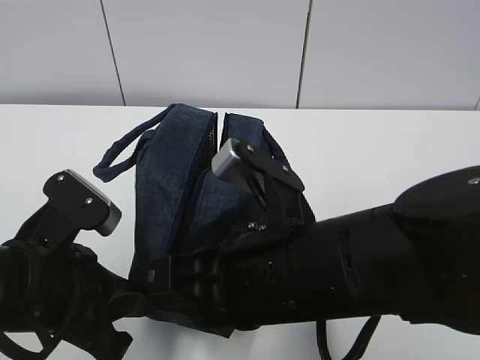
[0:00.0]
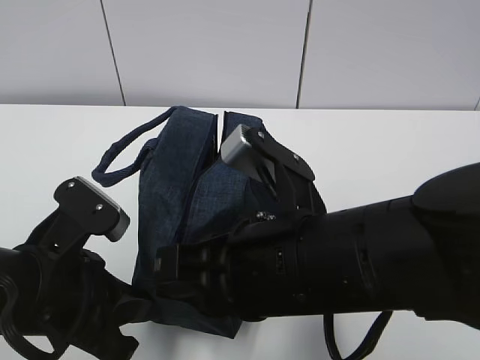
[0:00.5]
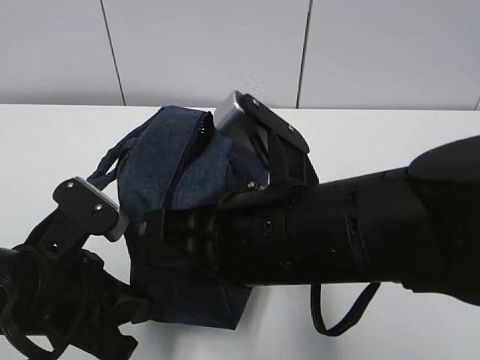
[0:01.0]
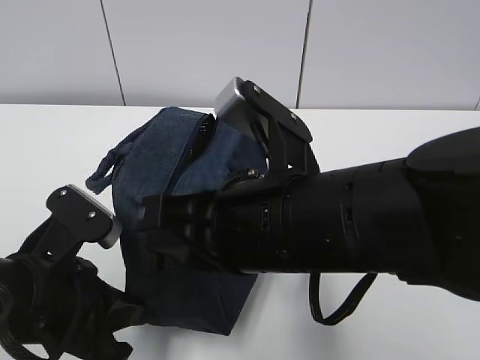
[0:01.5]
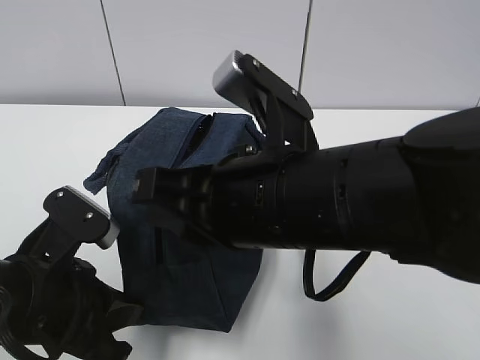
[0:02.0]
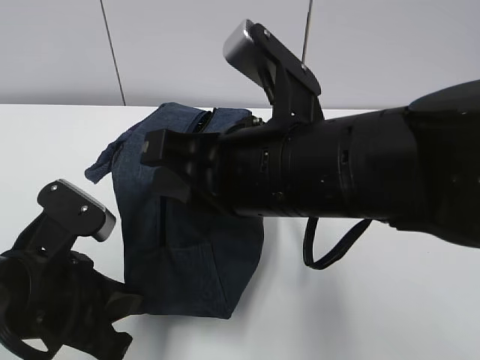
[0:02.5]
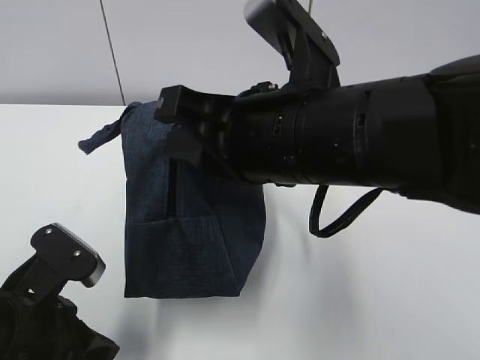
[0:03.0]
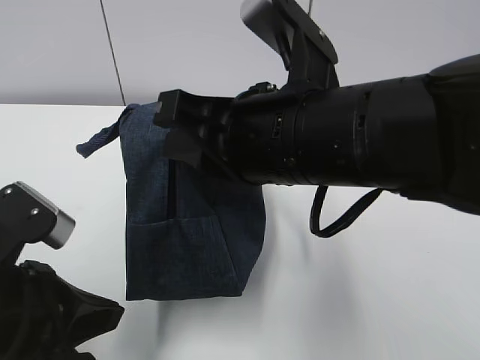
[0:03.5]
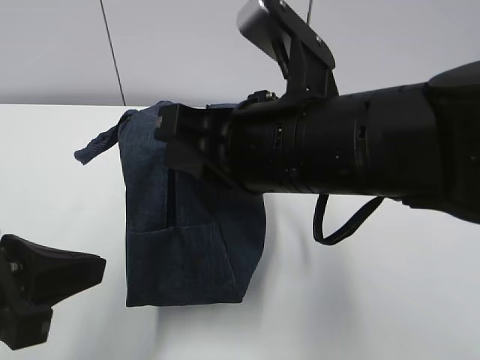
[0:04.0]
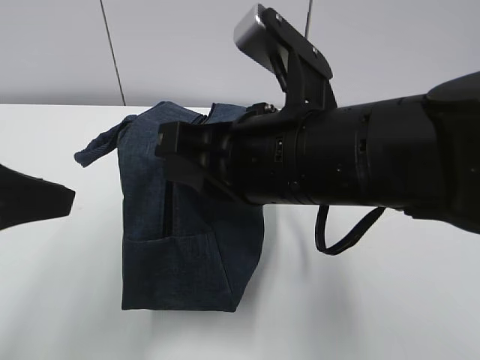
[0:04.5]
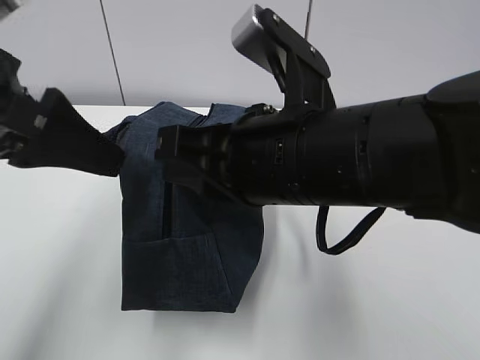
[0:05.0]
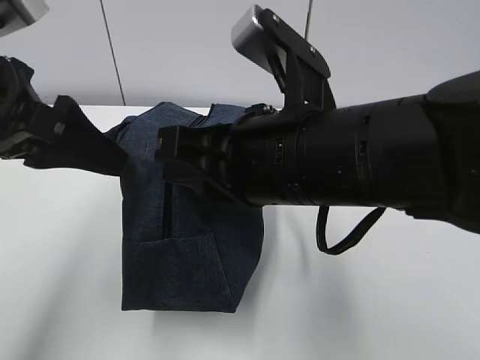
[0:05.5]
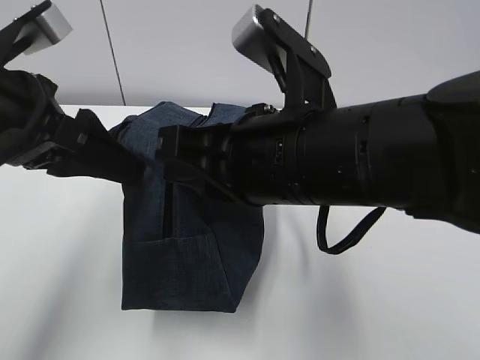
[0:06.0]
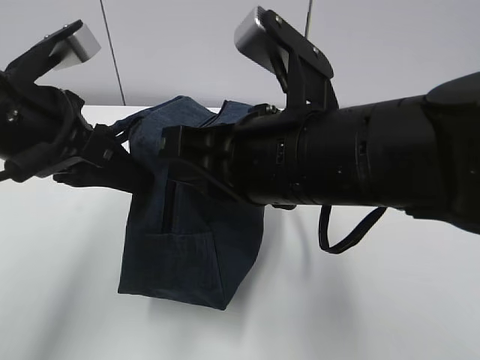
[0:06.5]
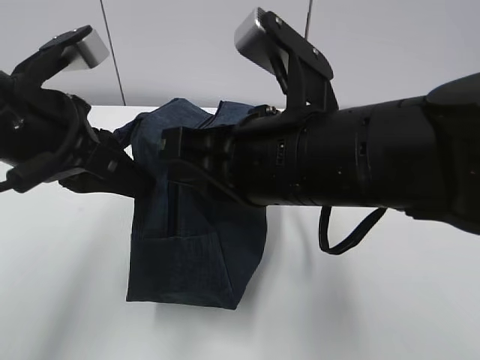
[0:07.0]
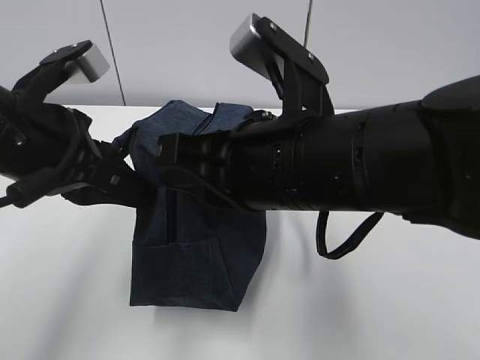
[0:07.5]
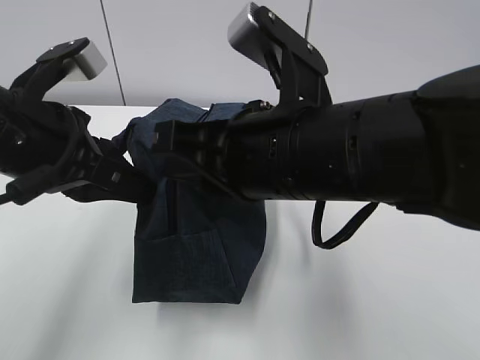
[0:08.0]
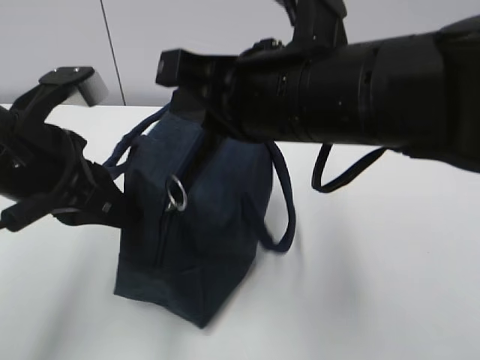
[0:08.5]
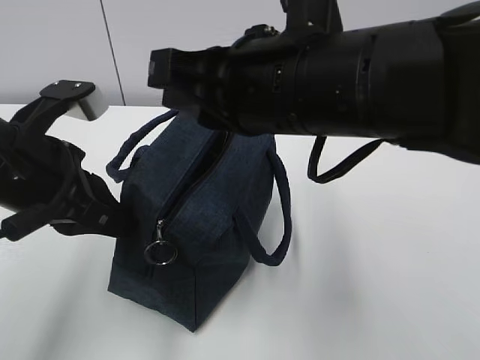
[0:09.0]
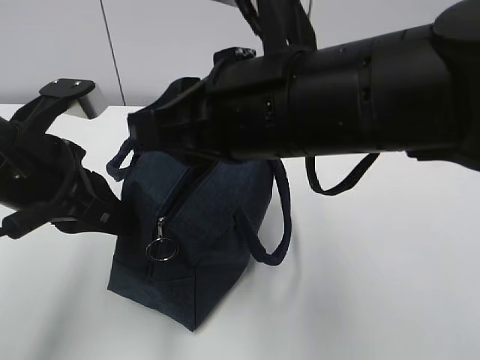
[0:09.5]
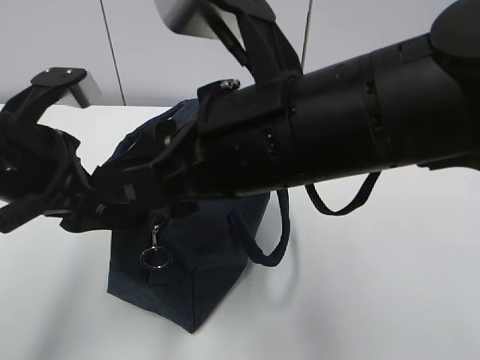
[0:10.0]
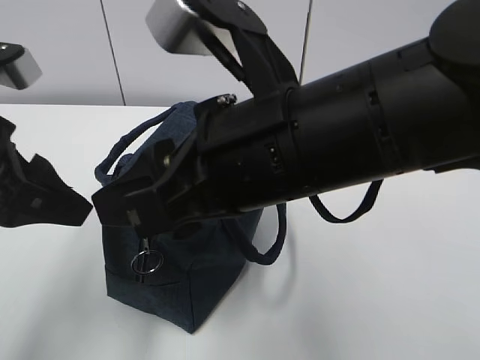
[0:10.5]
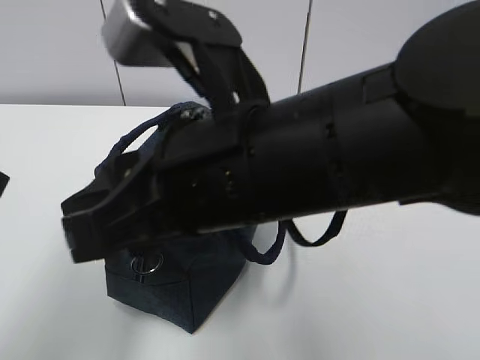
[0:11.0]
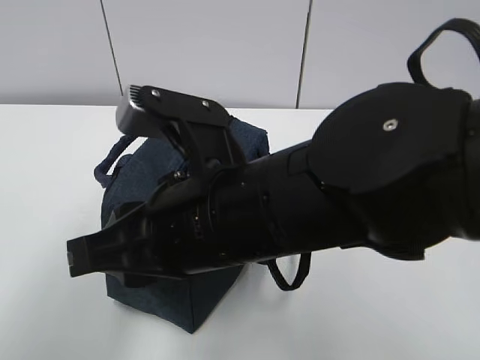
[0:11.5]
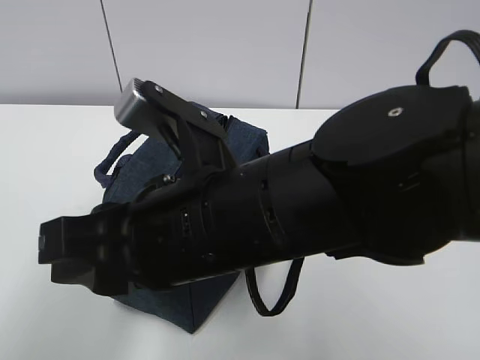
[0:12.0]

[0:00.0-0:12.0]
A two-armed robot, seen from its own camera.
Step, 0:00.0 to 0:11.0: Grab the lunch bag with your left hand.
0:02.0 to 0:04.0: The left gripper travels upward by about 5 cm.
0:04.0 to 0:06.0: The left gripper travels forward and upward by some 15 cm, and opens up.
0:06.0 to 0:08.0: The left gripper closes up.
0:08.0 to 0:10.0: The left gripper opens, while the right gripper opens its fingers.
0:10.0 to 0:12.0: The left gripper heads backward, upward and to the left, covering roughly 15 cm, while the right gripper moves downward, about 5 cm.

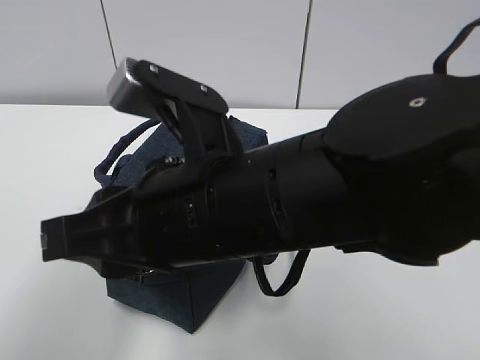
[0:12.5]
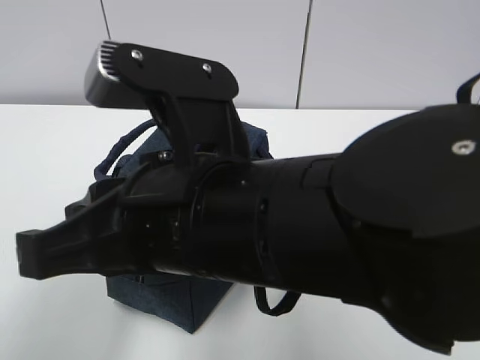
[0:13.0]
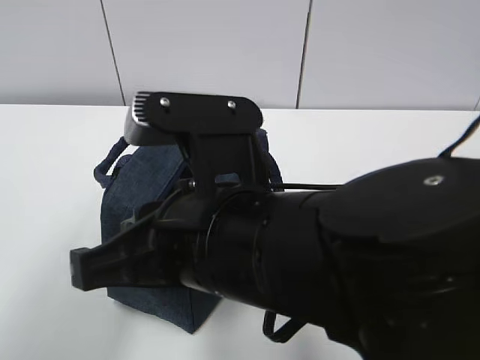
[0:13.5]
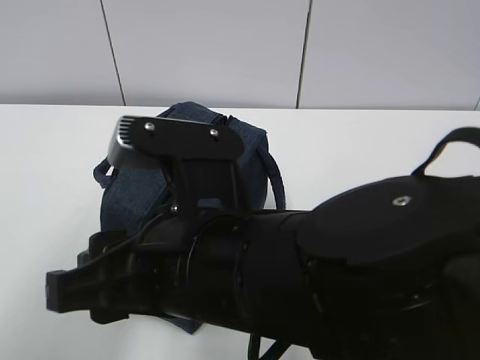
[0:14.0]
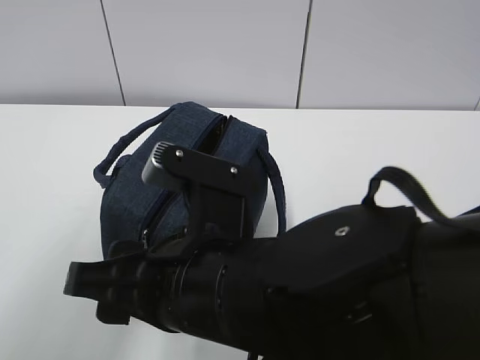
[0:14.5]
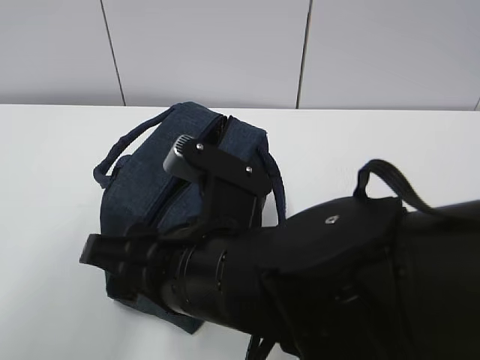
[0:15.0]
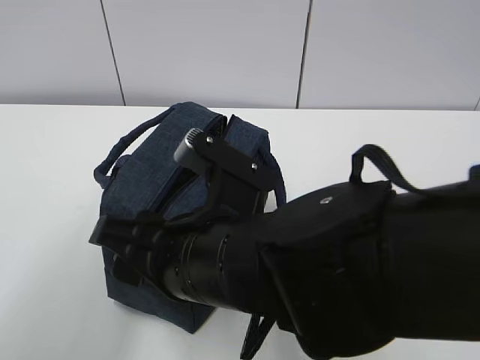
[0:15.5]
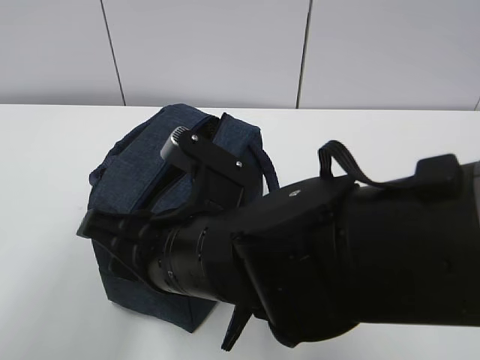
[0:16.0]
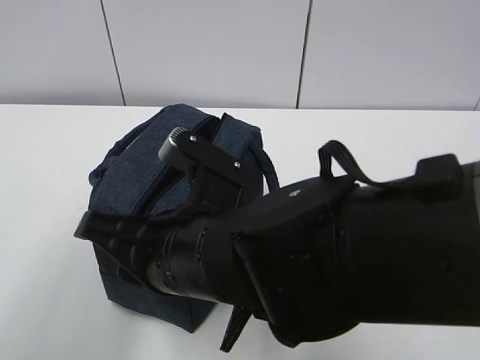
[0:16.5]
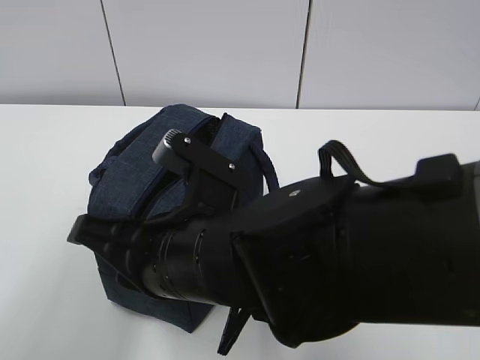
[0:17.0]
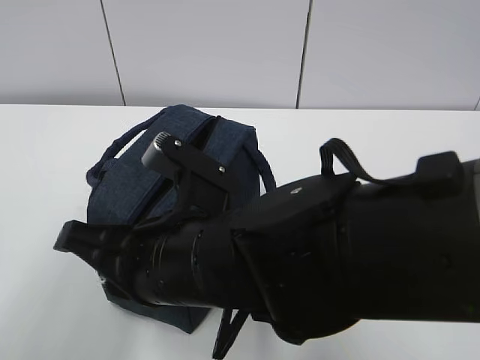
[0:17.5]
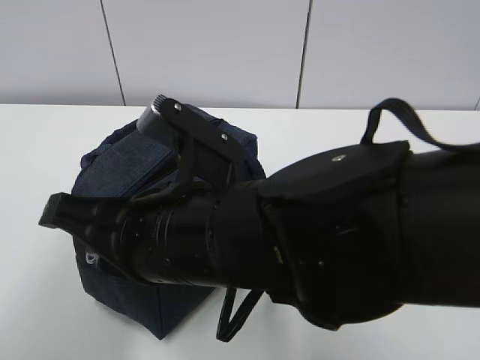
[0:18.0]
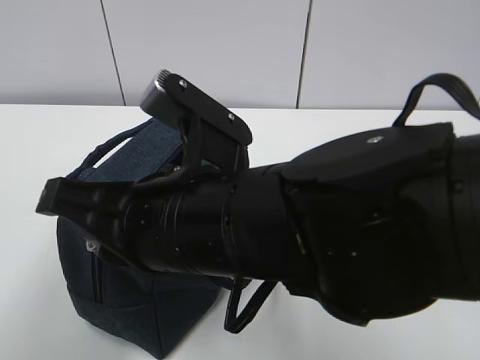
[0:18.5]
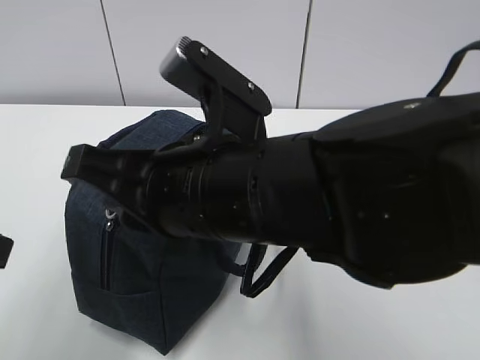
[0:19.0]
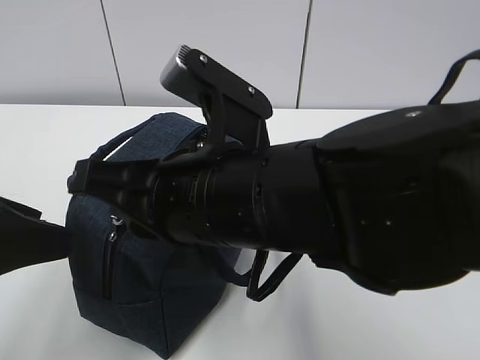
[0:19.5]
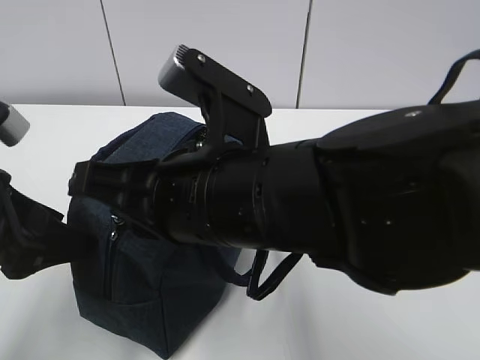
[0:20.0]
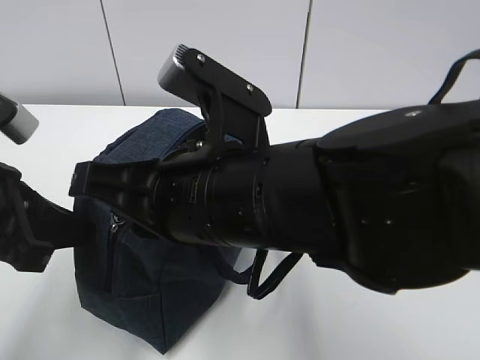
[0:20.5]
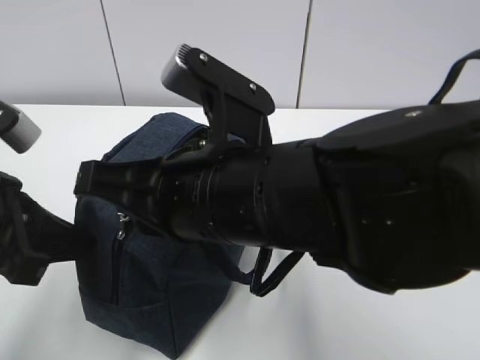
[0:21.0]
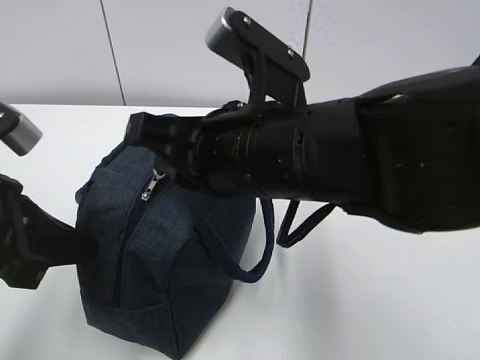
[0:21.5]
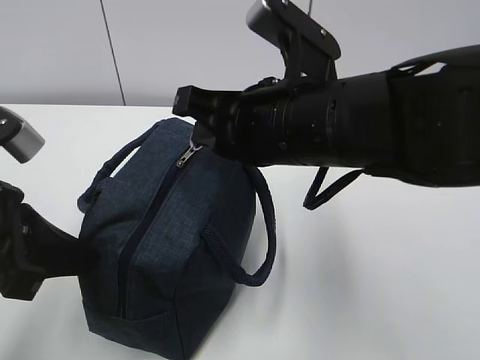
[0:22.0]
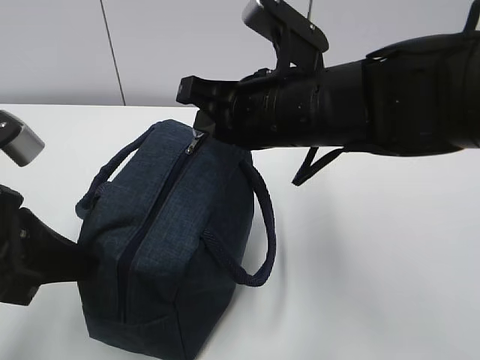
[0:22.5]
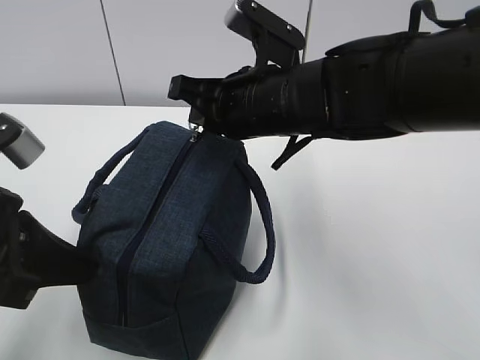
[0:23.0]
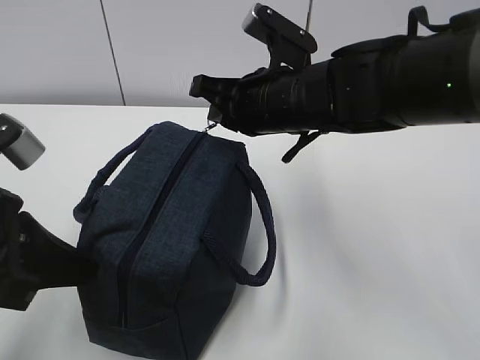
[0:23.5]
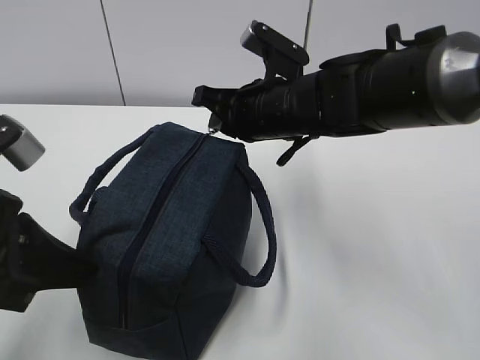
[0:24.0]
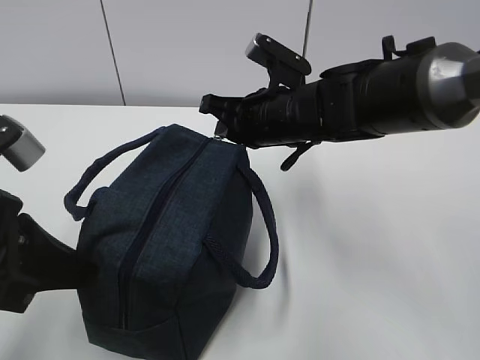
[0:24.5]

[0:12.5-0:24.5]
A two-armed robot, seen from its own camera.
Step, 0:12.5 to 0:15.5: Pull the zipper with your right hand.
0:12.5 to 0:14.5: The right gripper ends up roughly 5 cm from where it was, and opens.
0:14.5 to 0:16.5: The right gripper closes its fingers.
0:16.5 to 0:18.5: The right gripper travels upward by some 5 cm.
0:18.5 to 0:20.5: The left gripper travels downward and forward by some 15 cm, and closes its fingers.
0:20.5 to 0:22.5: The right gripper travels forward and to the right by about 10 cm.
0:22.5 to 0:24.5: The right gripper heads forward and downward, covering about 10 cm.

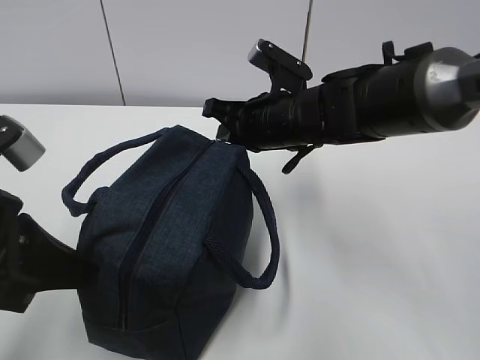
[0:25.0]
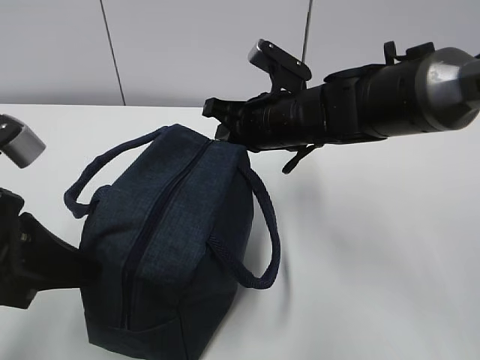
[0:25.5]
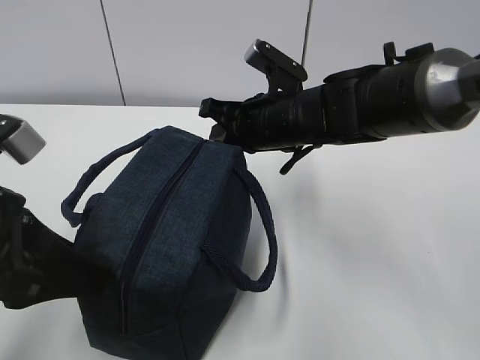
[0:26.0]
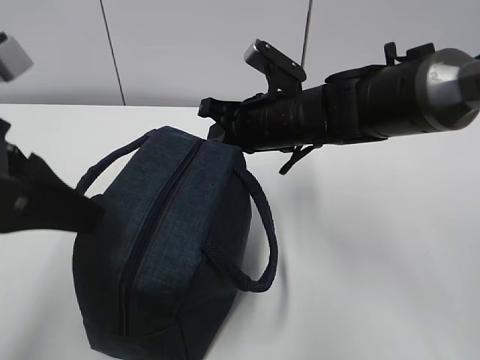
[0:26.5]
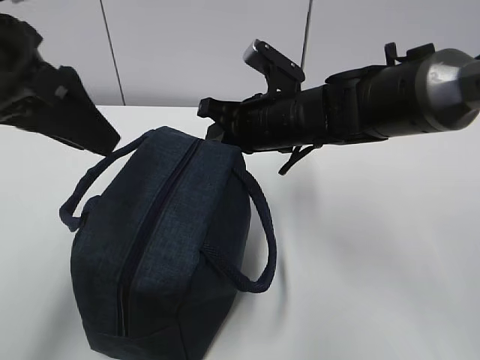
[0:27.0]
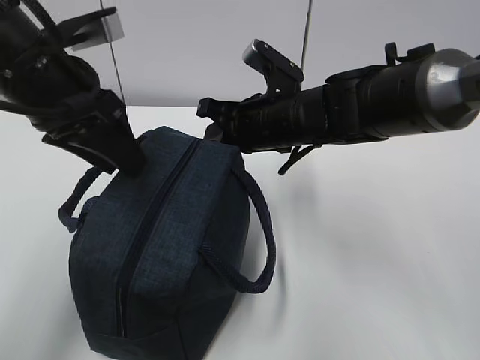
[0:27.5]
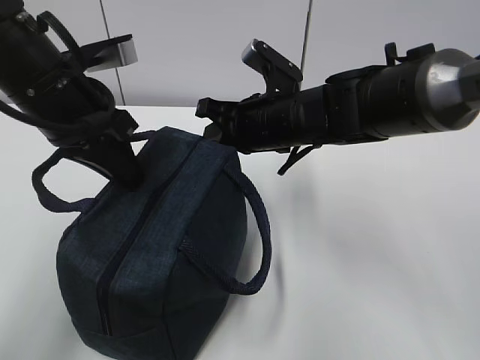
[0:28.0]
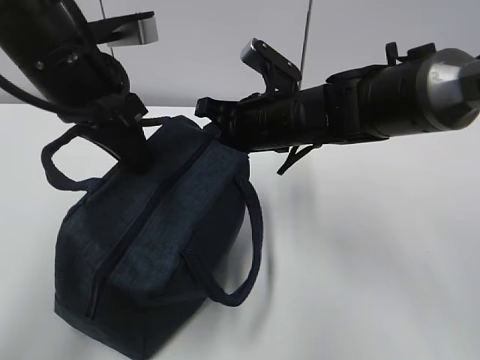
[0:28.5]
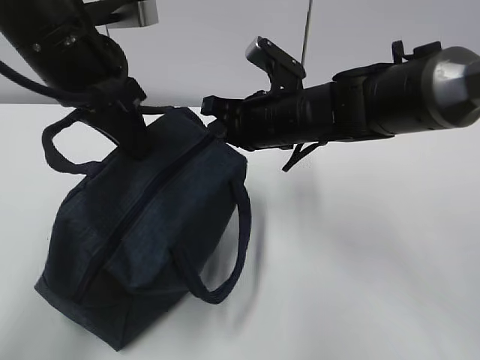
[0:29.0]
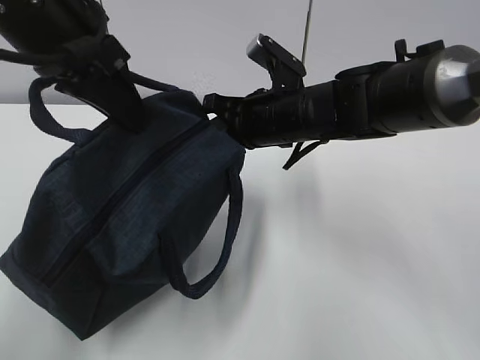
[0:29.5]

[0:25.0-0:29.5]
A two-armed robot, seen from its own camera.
0:25.0 to 0:27.0: The left gripper moves upward and forward, approximately 10 cm, and opens.
0:27.0 to 0:29.5: The left gripper closes its fingers.
